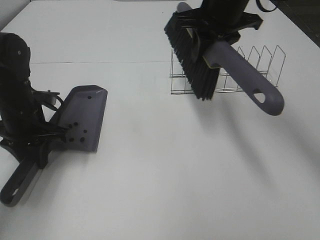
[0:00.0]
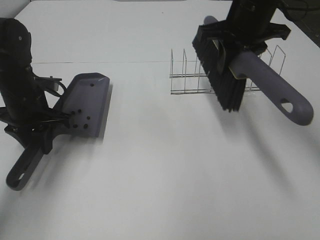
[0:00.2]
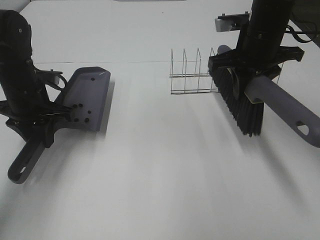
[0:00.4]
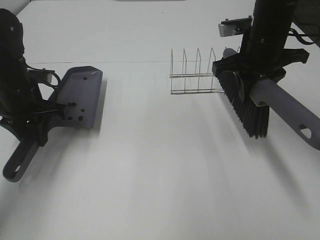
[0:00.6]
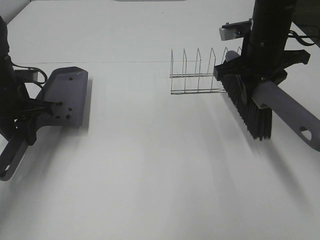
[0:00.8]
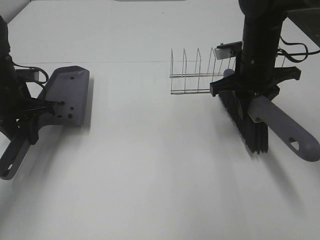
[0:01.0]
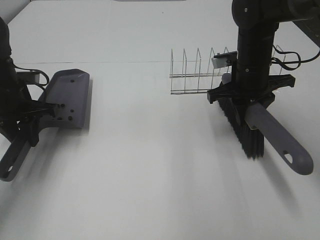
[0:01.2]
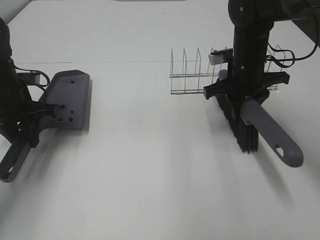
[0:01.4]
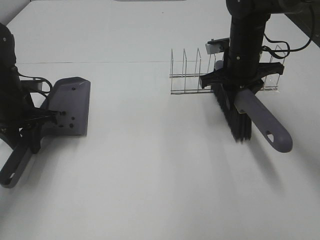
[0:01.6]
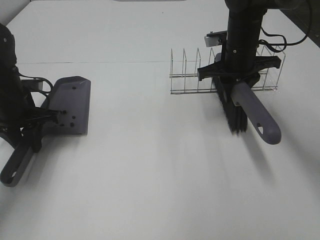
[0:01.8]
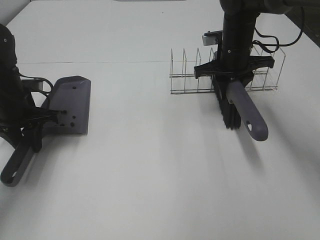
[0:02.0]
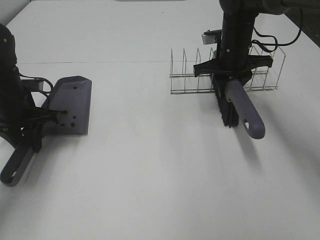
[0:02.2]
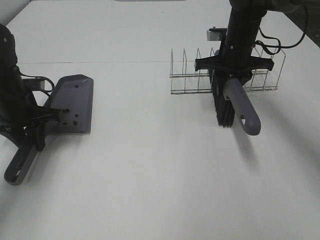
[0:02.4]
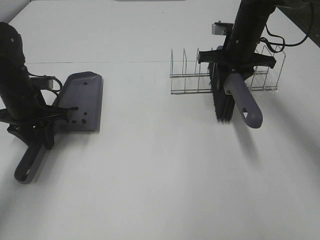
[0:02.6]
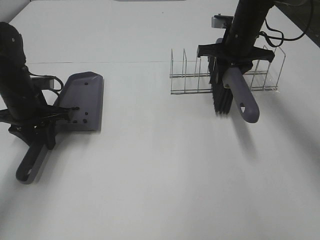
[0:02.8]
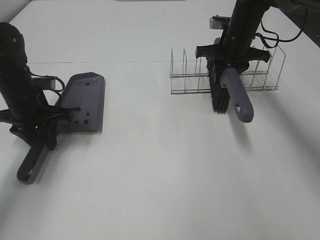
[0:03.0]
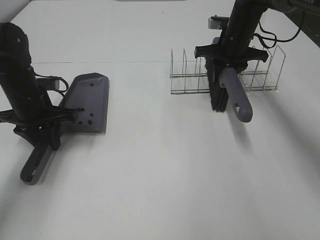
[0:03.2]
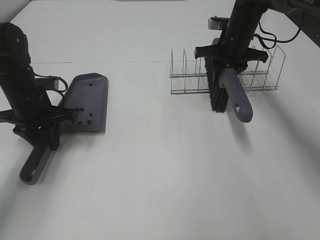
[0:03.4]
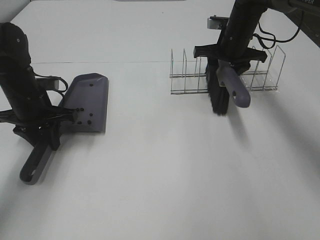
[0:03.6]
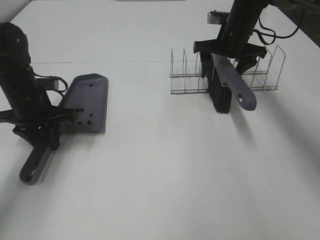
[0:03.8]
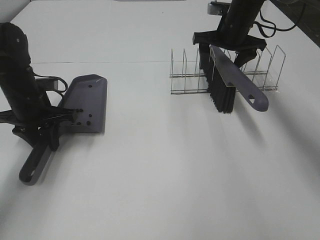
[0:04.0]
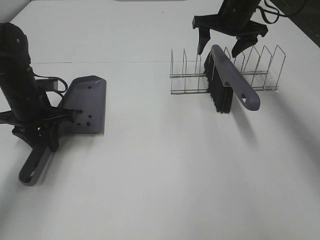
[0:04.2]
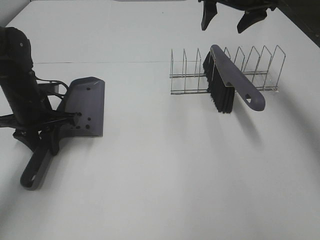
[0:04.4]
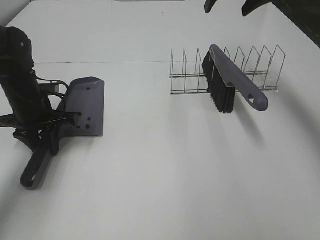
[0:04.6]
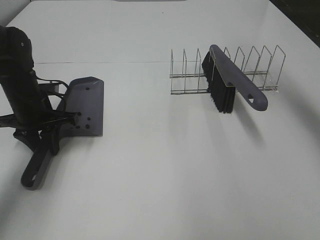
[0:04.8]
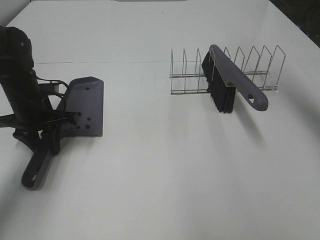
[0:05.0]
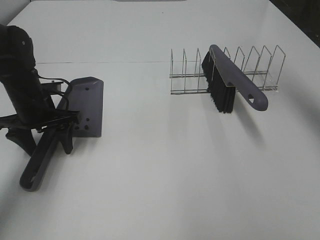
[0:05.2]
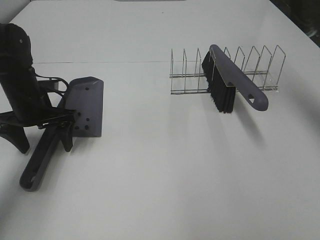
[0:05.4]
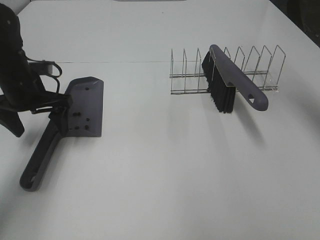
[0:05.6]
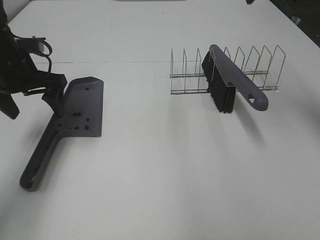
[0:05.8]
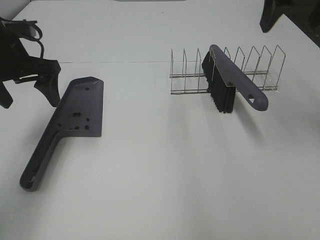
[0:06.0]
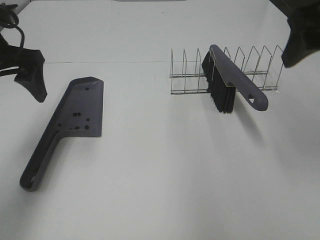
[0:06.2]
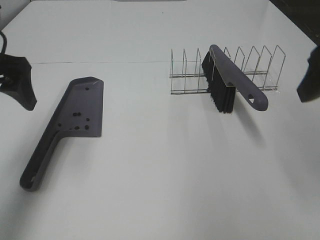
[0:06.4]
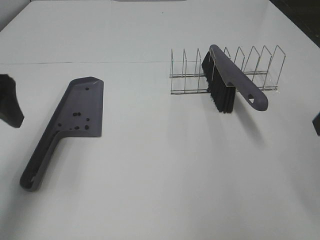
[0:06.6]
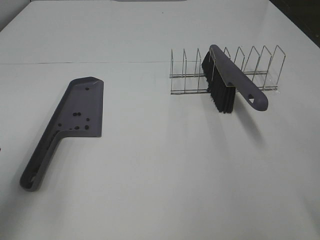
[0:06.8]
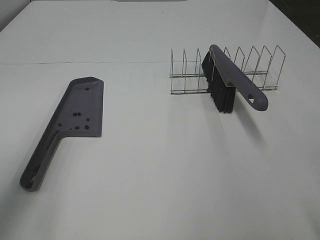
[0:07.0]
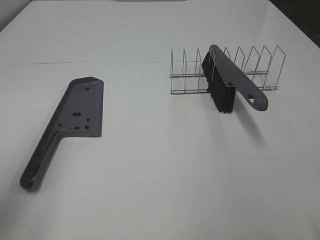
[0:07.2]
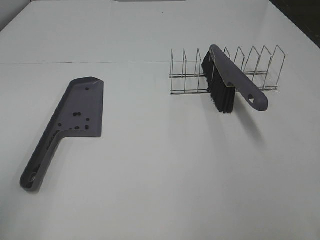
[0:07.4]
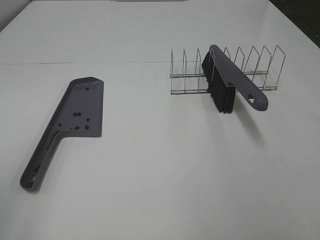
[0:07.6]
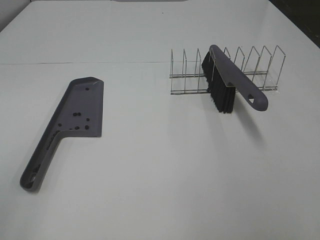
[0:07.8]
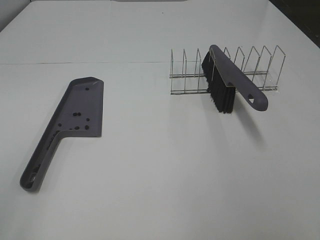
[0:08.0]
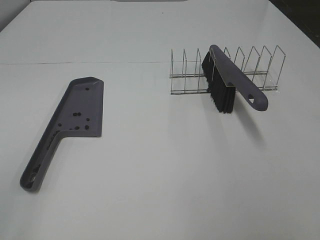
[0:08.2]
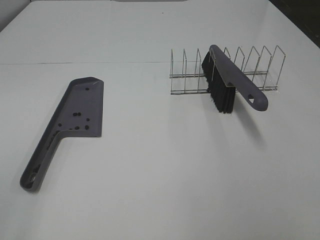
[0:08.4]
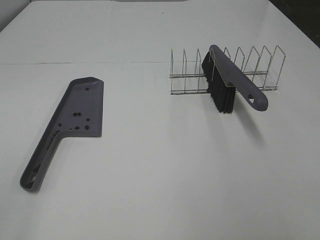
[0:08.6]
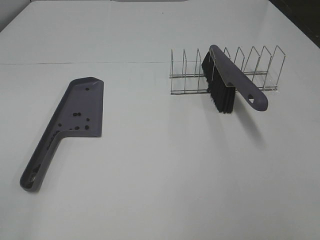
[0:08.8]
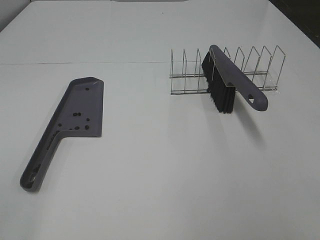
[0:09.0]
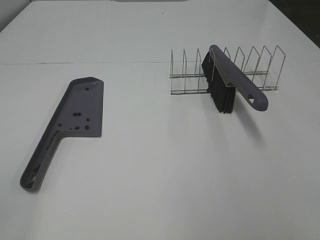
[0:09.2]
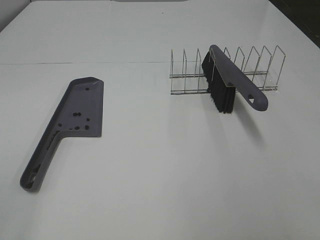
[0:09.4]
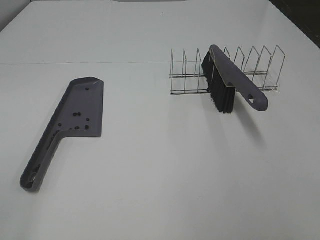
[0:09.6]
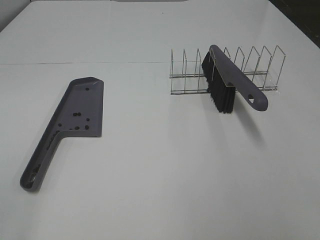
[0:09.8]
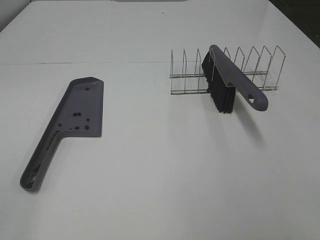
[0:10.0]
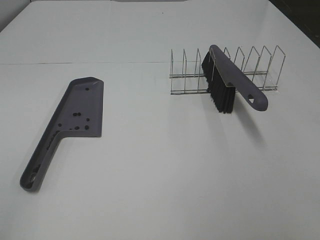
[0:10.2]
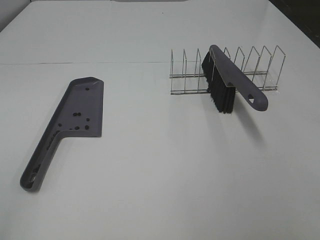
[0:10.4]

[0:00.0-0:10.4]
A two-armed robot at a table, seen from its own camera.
Task of the whole recording: Sweep Coffee Bean.
Step, 0:00.0 to 0:03.8: Right hand:place the broom on the rack.
0:00.0 to 0:01.4: The right gripper heads downward, covering roughly 10 cm.
0:01.4 to 0:03.0: The right gripper travels forward by some 10 cm.
0:03.0 to 0:04.4: The right gripper moves upward, approximately 10 cm, and opens.
0:04.4 to 0:06.0: The right gripper shifts about 20 cm backward and upward; the left gripper moves upward, roughly 15 cm, and opens.
0:06.0 to 0:07.4: The grippers both shift backward by roughly 25 cm.

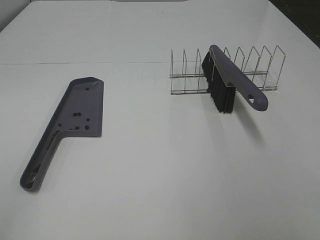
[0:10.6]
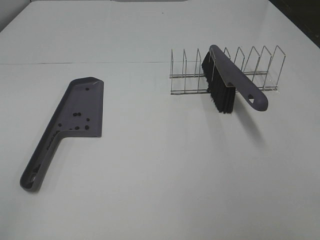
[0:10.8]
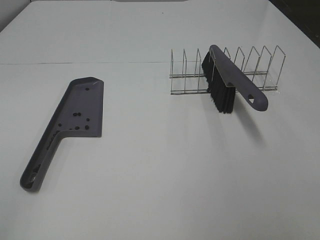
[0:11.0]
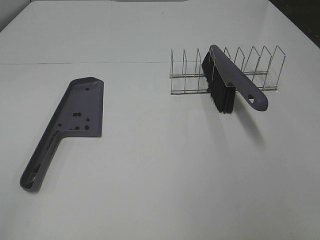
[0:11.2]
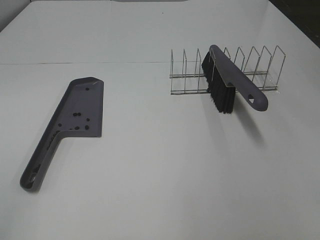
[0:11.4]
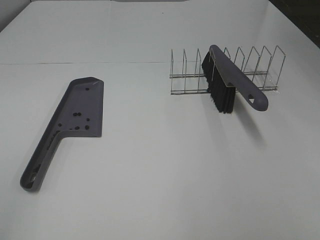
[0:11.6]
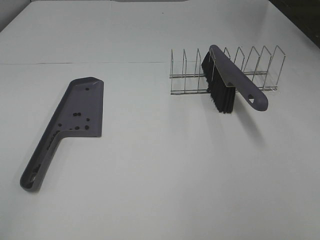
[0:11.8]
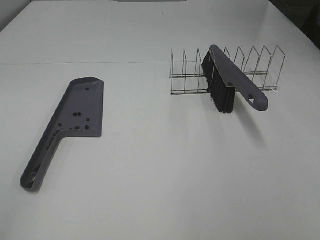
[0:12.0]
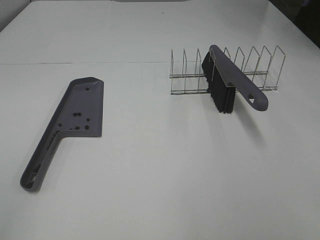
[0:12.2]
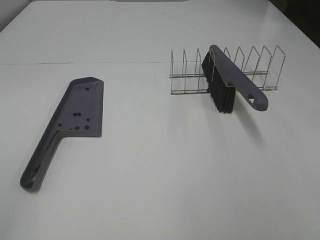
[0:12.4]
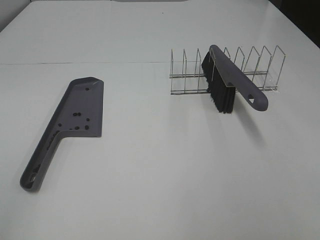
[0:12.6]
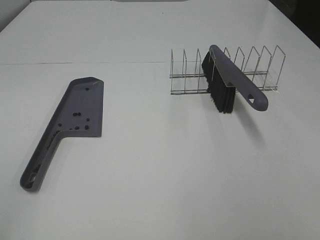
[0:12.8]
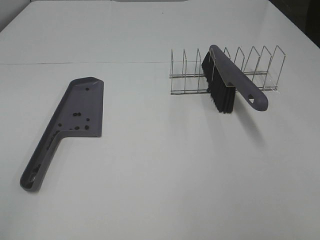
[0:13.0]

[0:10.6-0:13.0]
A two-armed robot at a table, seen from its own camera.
Task of the whole recording: Sweep Coffee Bean.
0:10.6 to 0:13.0: Neither gripper changes place.
